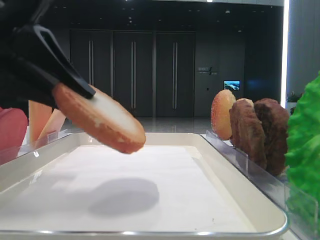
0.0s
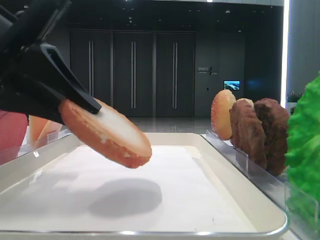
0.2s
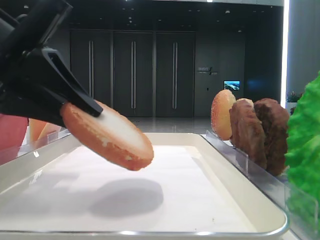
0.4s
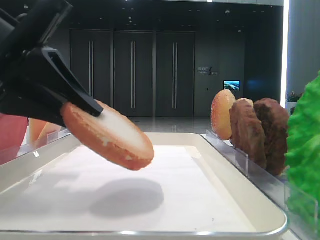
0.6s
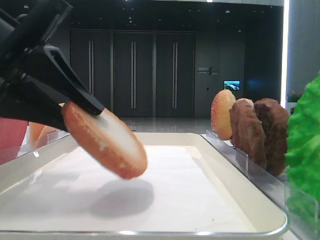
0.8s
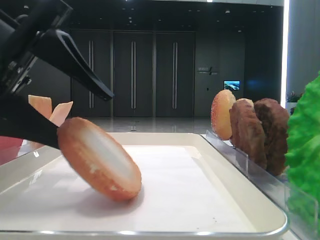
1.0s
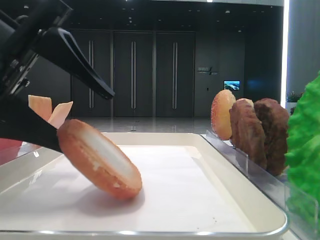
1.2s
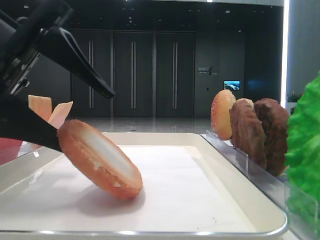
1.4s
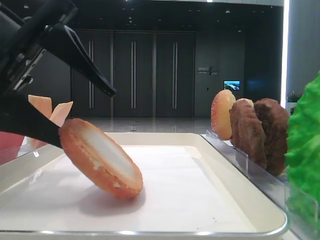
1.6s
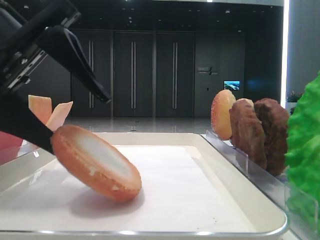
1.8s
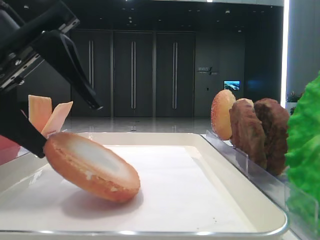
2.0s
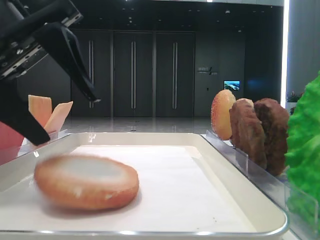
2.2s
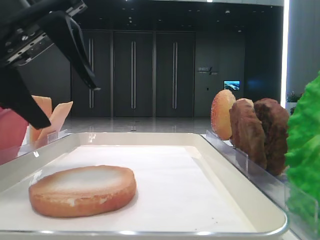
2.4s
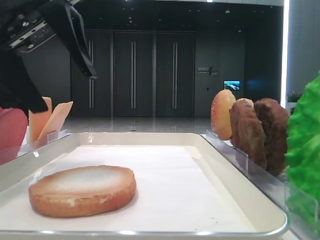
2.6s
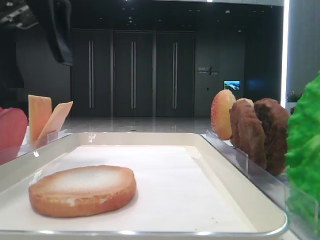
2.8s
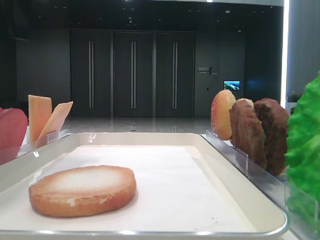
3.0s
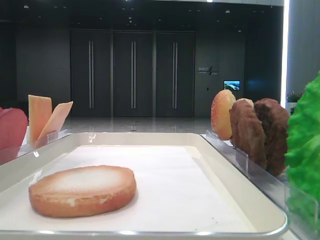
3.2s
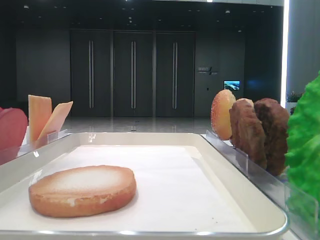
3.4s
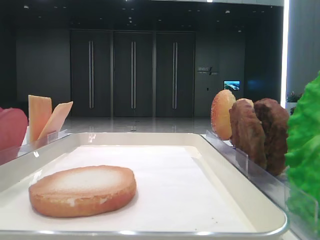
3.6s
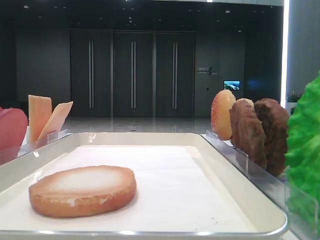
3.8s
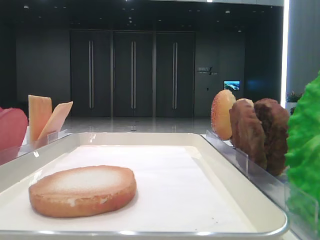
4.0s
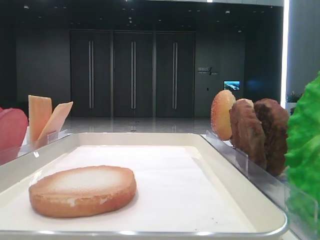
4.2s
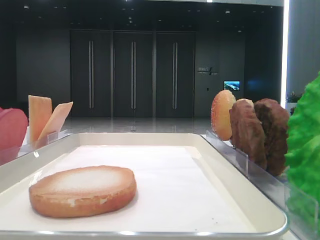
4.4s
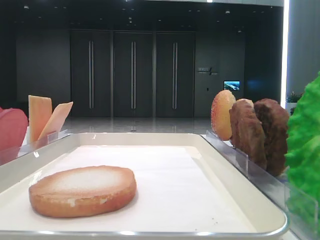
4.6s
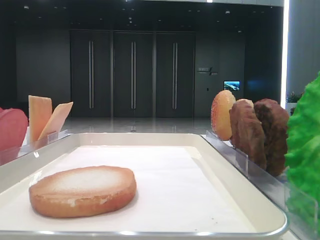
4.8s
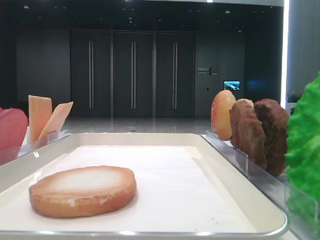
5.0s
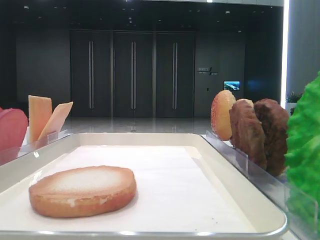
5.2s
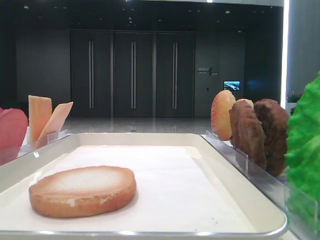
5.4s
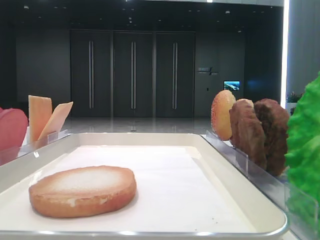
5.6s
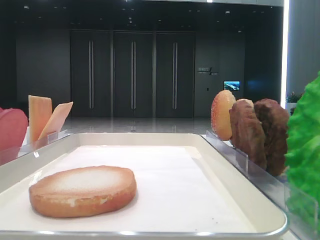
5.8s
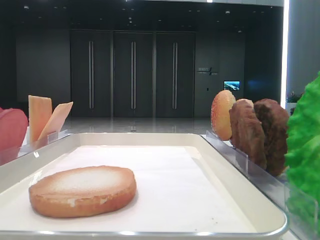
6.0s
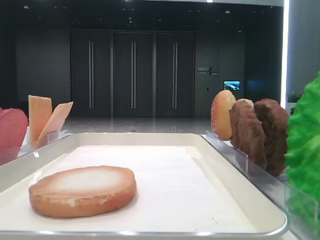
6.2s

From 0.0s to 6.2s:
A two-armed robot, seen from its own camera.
Step, from 0.0s to 2.0s: Place the bread on the tray with the left hand.
From 0.0s to 1.6s: The left gripper opens up.
From 1.6s to 3.2s: The left gripper moves upward, roughly 15 cm.
From 3.2s to 4.6s: The left gripper travels backward and to the left by roughly 25 cm.

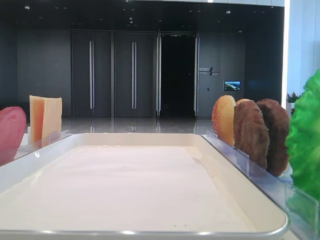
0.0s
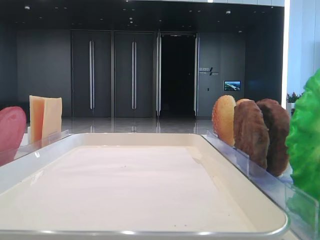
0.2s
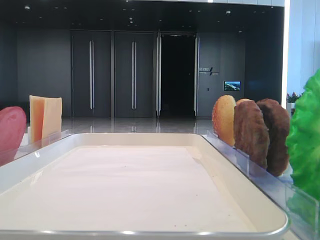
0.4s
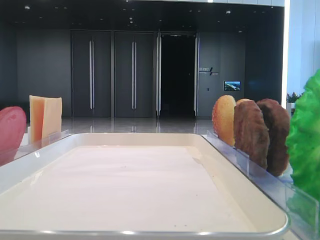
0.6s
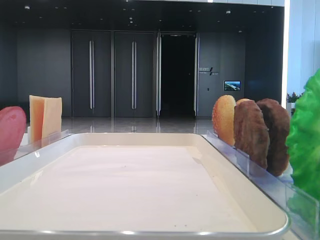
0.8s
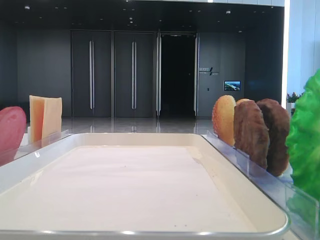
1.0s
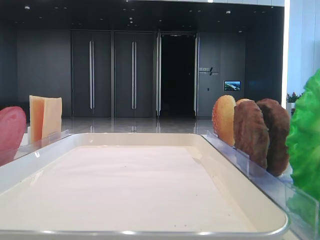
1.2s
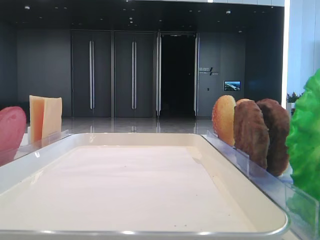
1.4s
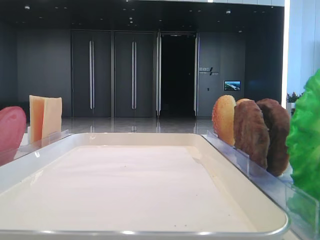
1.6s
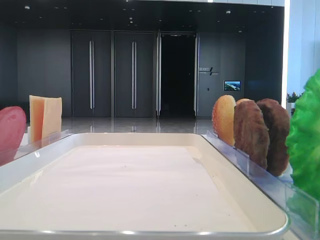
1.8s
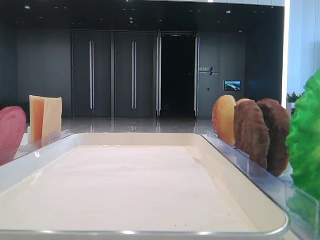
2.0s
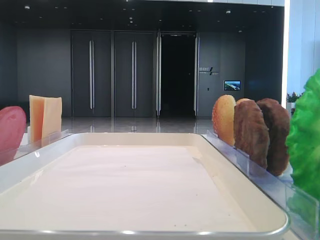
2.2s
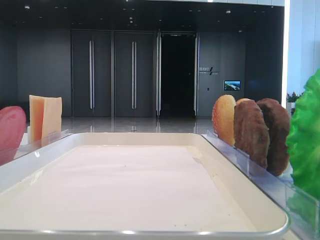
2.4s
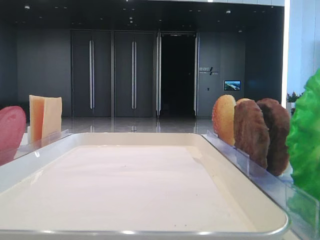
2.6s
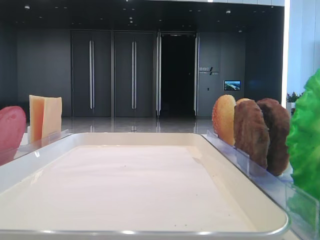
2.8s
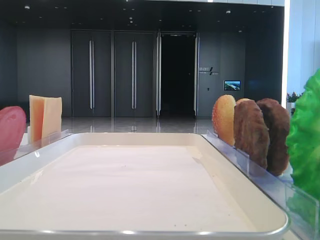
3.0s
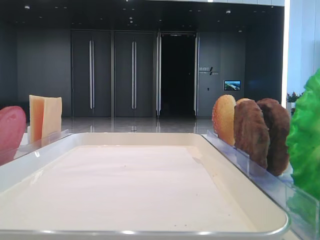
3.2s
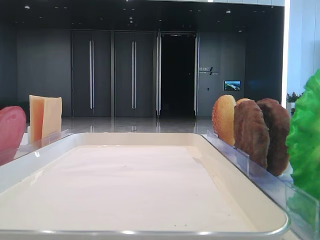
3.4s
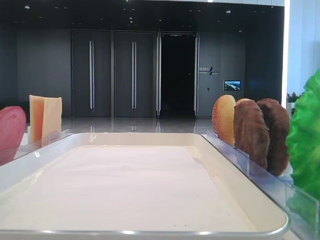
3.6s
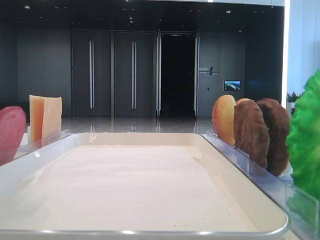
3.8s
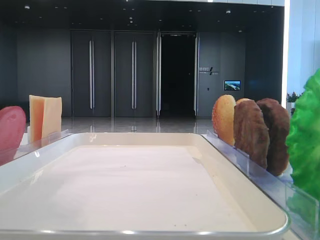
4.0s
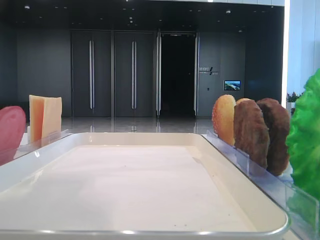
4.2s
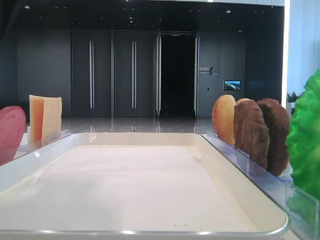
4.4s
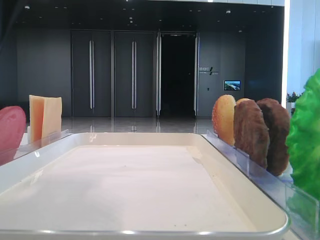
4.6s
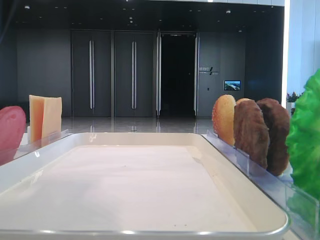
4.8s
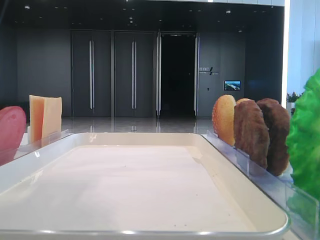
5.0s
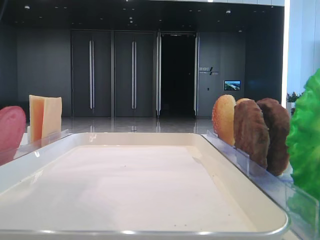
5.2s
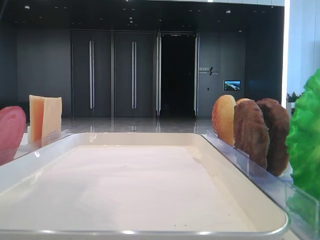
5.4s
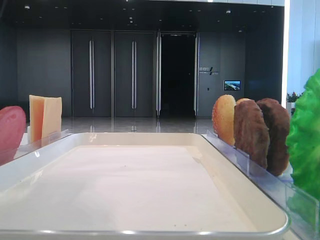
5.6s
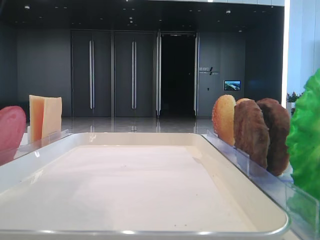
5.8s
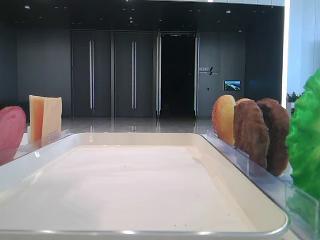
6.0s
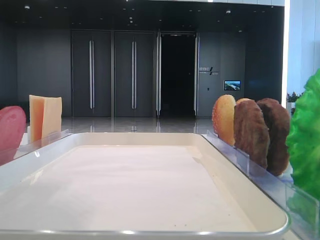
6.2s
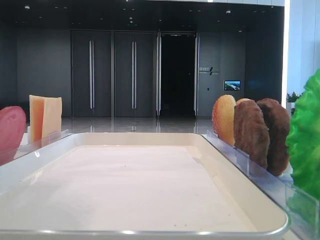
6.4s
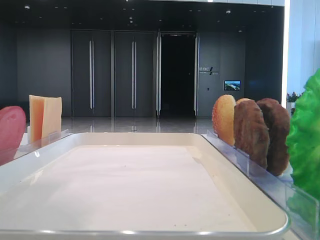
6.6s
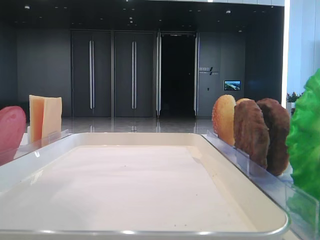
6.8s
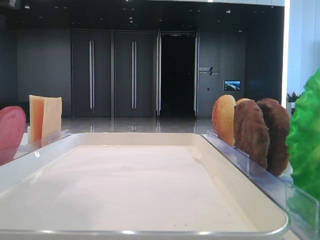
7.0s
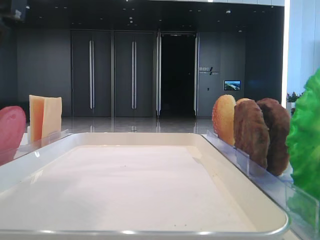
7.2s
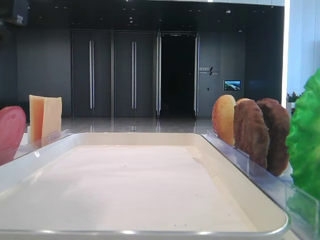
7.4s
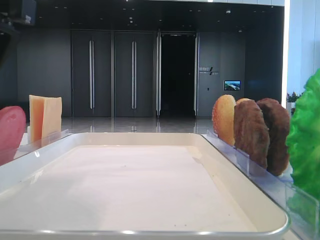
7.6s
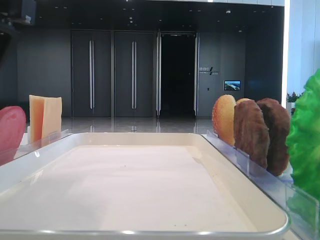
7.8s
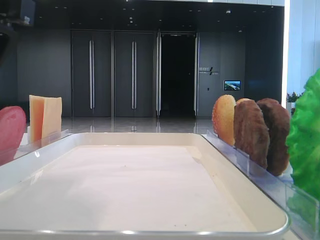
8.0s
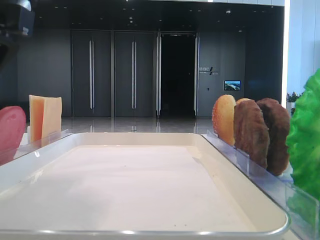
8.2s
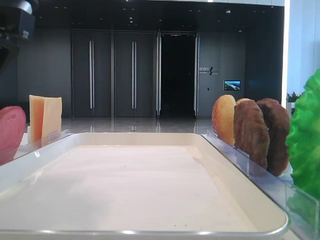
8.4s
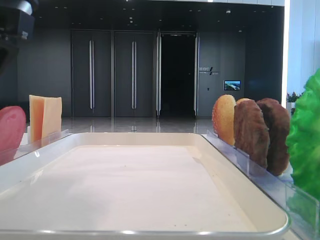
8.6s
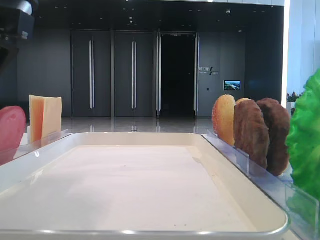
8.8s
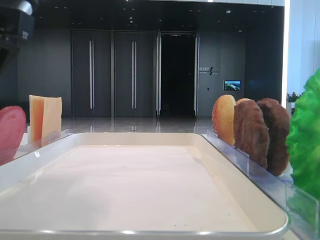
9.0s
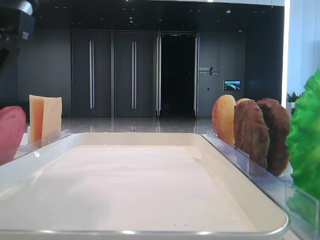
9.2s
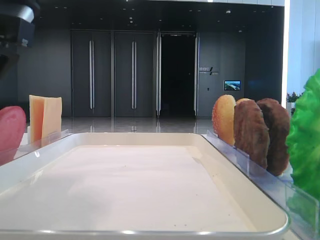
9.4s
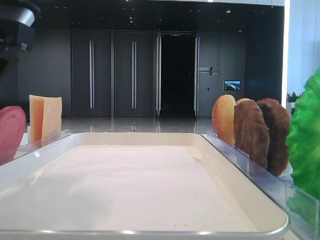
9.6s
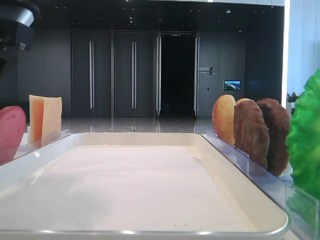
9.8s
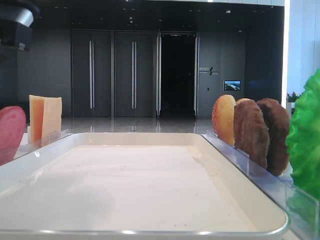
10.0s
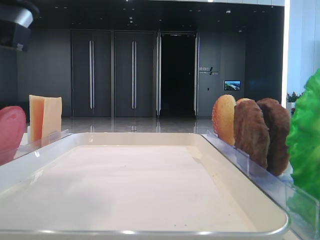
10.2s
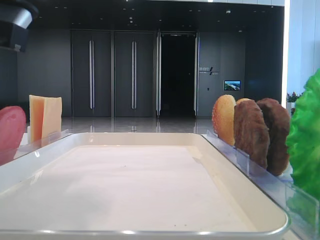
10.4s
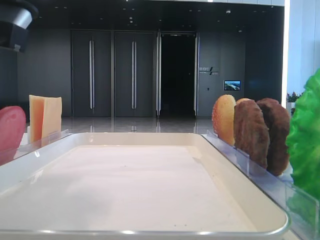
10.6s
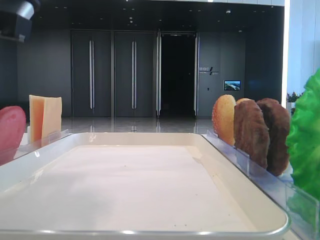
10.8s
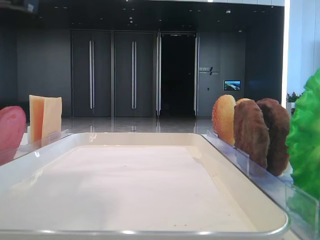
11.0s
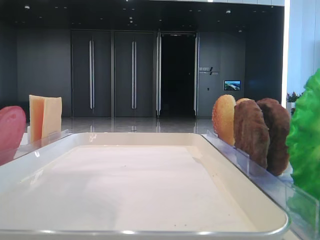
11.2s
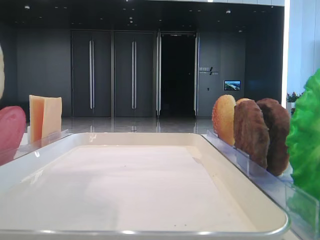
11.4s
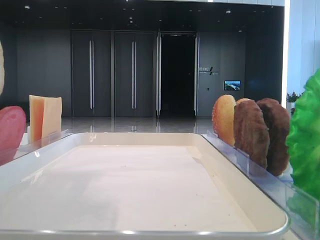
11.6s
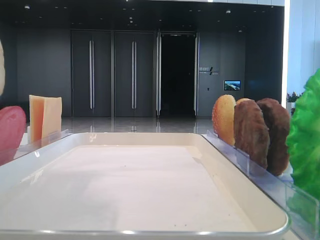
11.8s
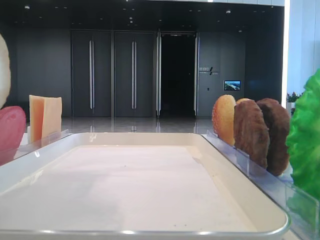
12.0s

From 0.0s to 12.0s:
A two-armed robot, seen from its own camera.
From 3.0s to 4.4s: The left gripper moves to the right and downward, about 20 cm.
From 7.6s to 9.0s: Both grippers stay put.
From 9.0s to 10.4s: The left gripper closes its fingers.
From 10.4s to 12.0s: The left gripper travels upward by roughly 5 cm.

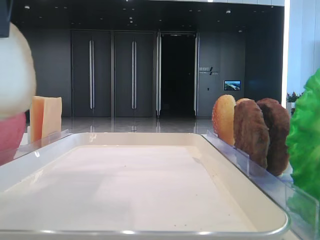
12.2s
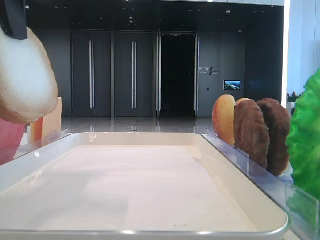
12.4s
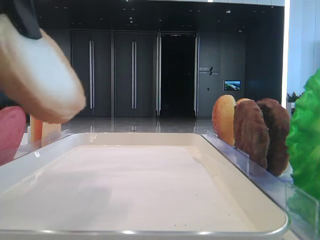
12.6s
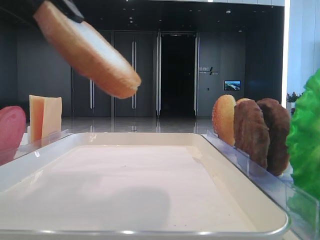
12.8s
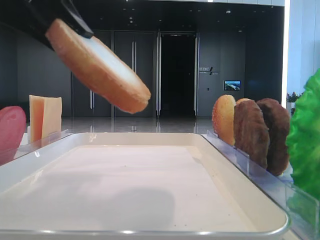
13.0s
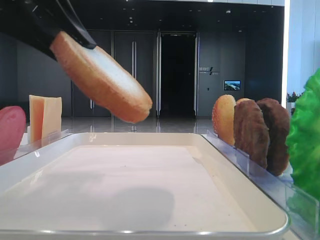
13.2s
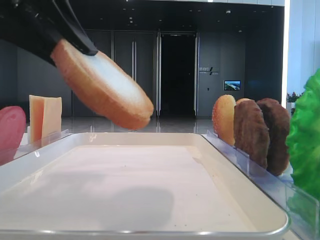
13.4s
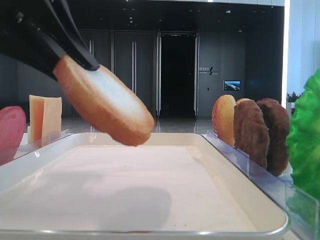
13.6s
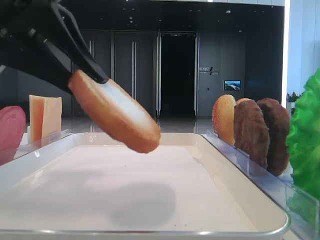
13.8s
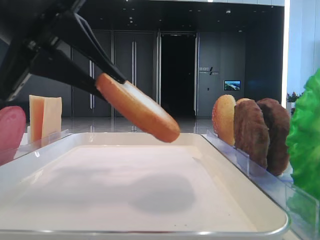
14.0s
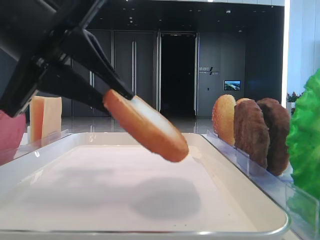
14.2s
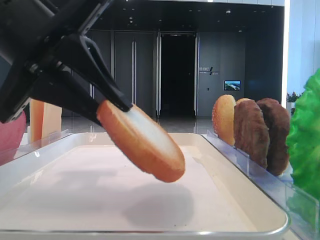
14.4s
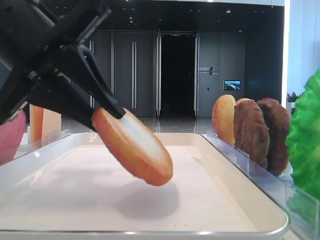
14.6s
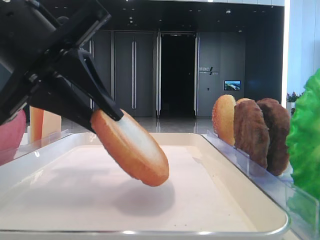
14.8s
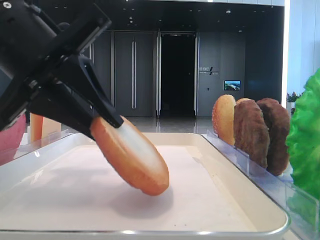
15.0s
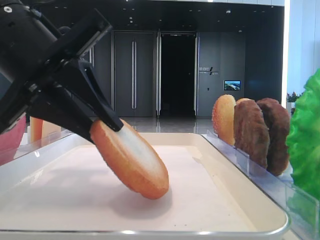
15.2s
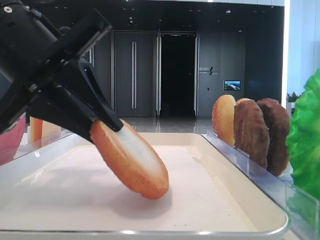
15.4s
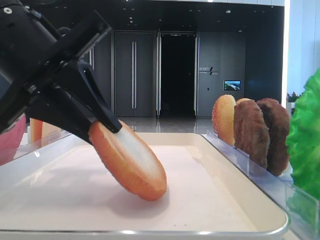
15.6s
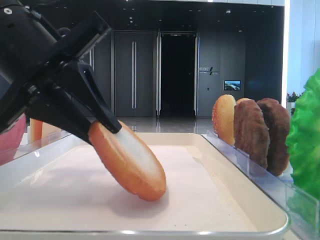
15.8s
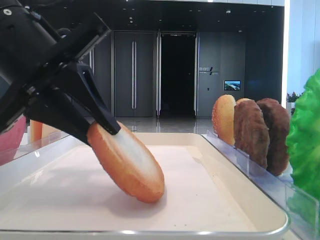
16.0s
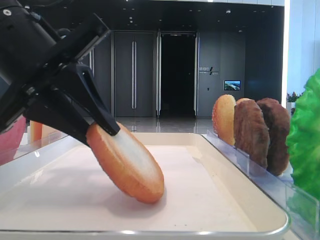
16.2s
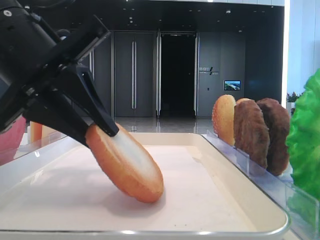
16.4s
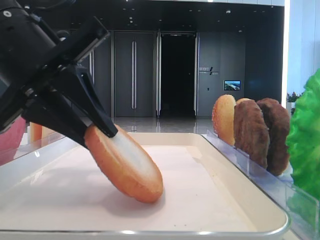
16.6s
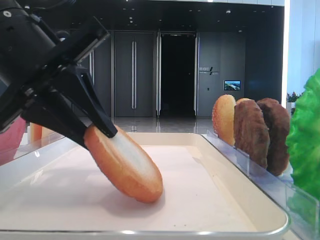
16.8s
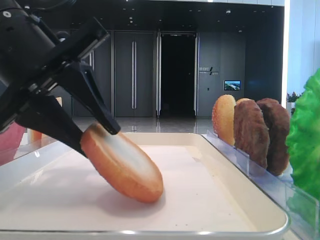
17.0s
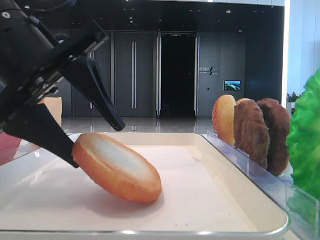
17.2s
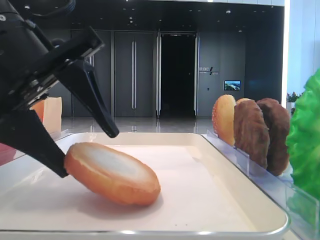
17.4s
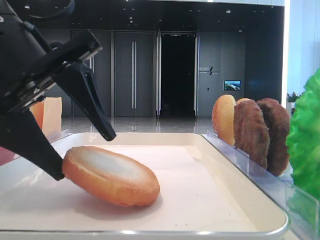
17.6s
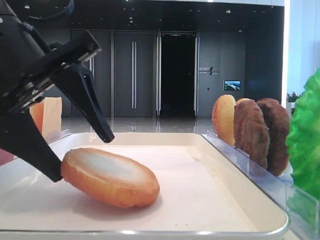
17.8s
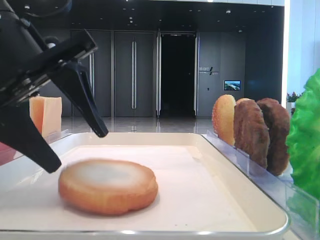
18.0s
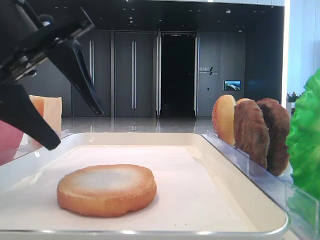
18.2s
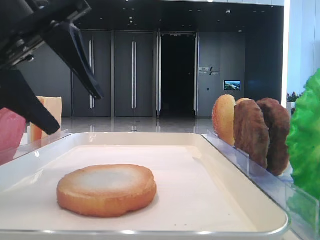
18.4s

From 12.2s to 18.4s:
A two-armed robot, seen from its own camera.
Step, from 12.2s to 17.8s: Place the bread on the tray with the left hand.
From 12.2s to 13.8s: The left gripper travels downward by roughly 10 cm.
From 13.8s to 15.4s: The grippers make only small movements.
From 15.4s to 16.8s: Both grippers stay about where they are.
From 16.8s to 18.4s: The left gripper opens up.
